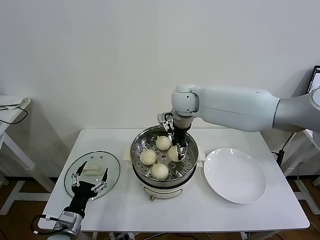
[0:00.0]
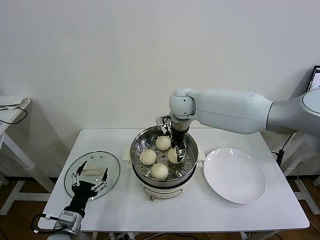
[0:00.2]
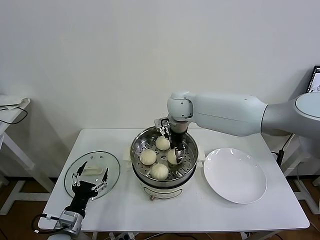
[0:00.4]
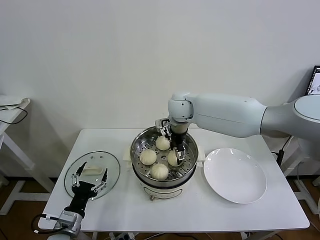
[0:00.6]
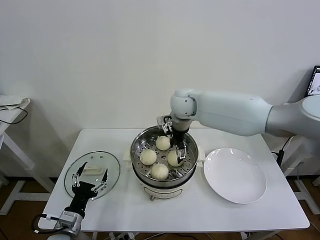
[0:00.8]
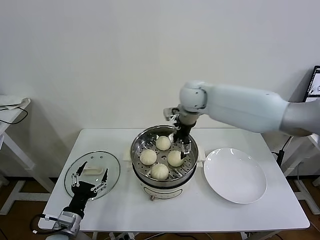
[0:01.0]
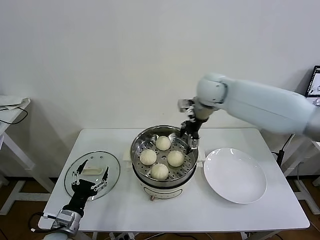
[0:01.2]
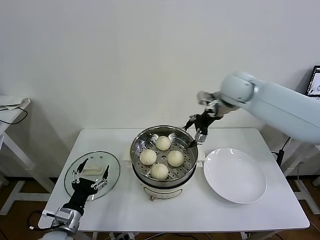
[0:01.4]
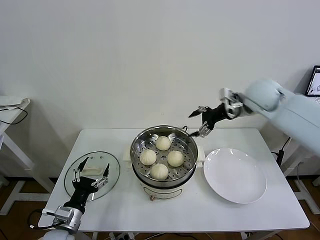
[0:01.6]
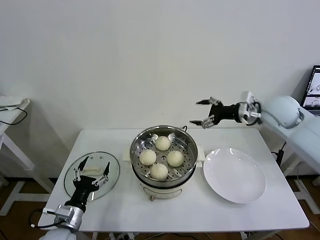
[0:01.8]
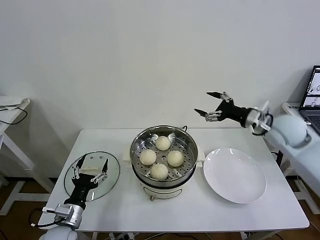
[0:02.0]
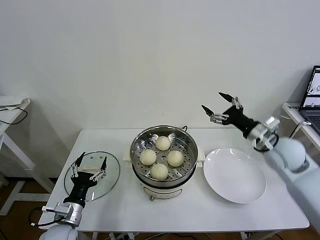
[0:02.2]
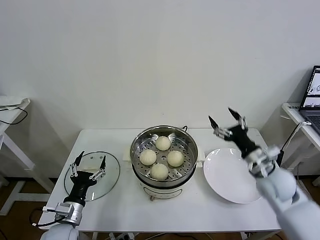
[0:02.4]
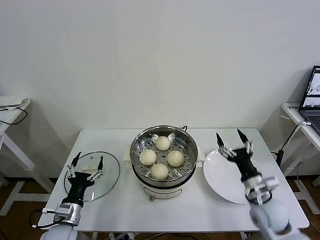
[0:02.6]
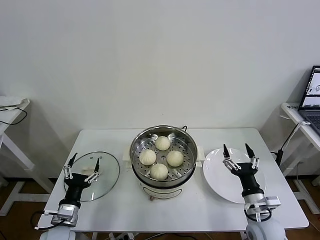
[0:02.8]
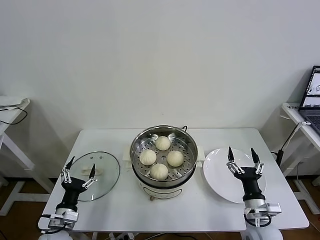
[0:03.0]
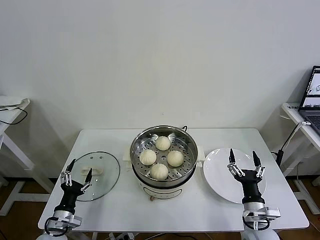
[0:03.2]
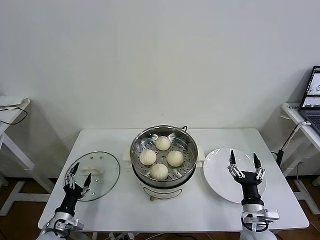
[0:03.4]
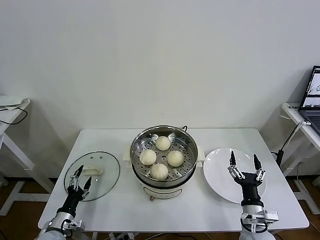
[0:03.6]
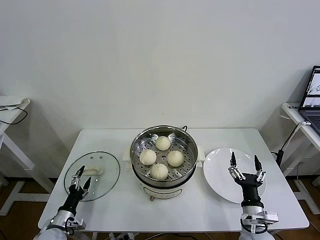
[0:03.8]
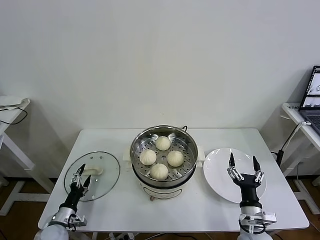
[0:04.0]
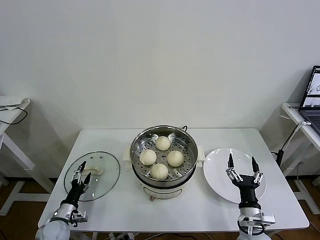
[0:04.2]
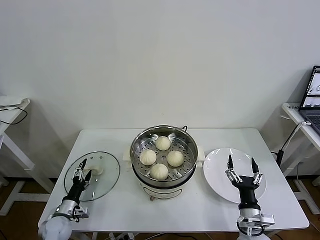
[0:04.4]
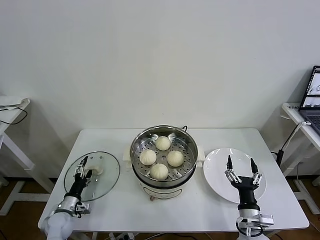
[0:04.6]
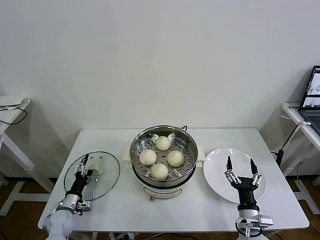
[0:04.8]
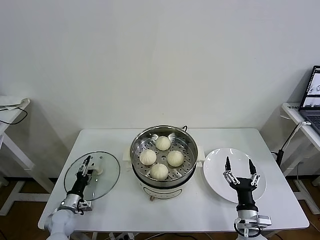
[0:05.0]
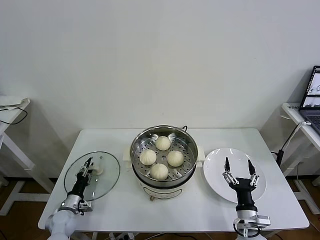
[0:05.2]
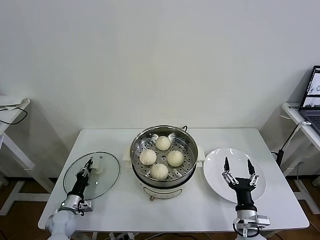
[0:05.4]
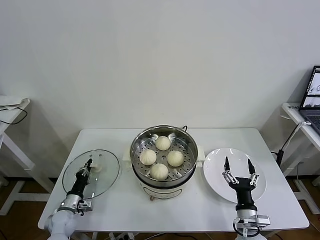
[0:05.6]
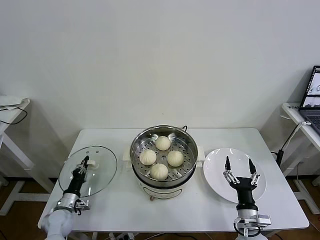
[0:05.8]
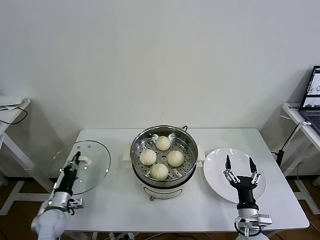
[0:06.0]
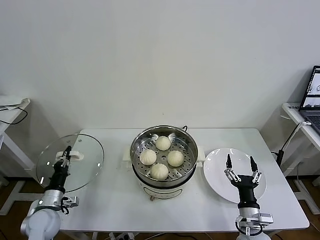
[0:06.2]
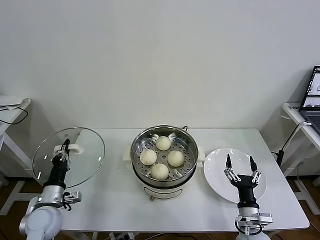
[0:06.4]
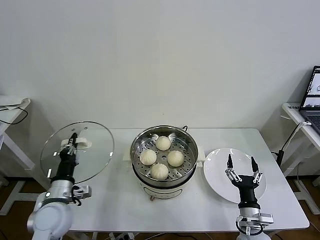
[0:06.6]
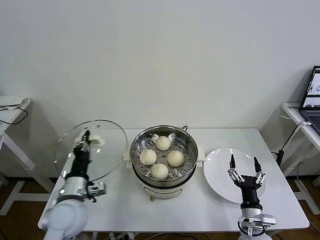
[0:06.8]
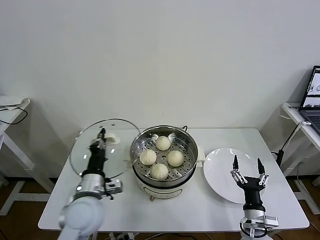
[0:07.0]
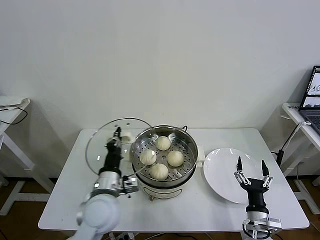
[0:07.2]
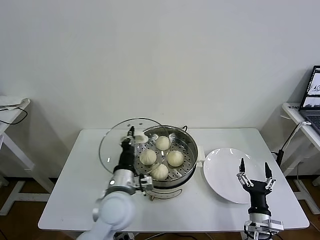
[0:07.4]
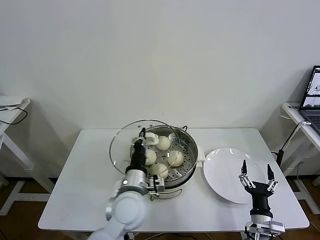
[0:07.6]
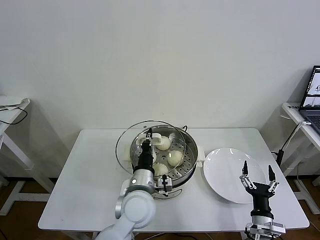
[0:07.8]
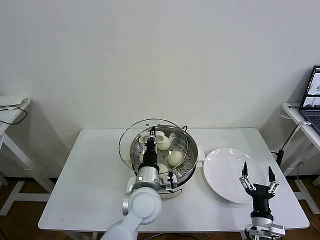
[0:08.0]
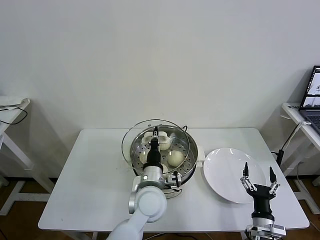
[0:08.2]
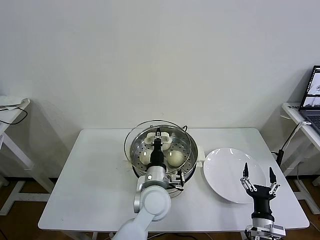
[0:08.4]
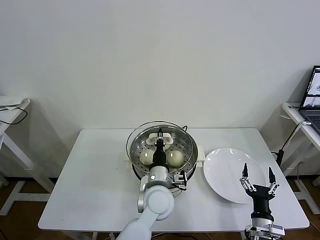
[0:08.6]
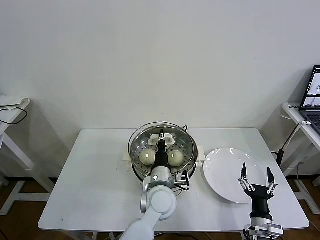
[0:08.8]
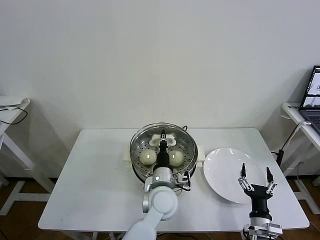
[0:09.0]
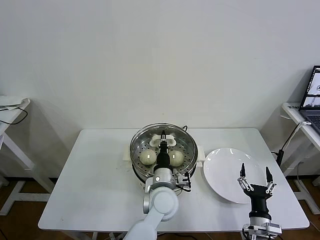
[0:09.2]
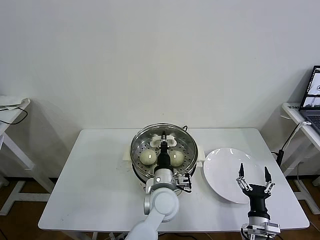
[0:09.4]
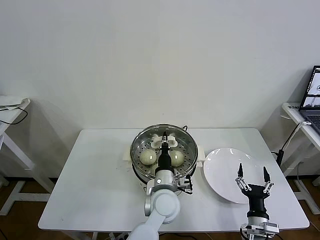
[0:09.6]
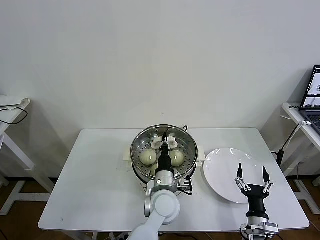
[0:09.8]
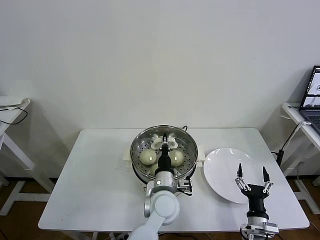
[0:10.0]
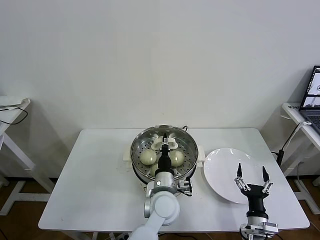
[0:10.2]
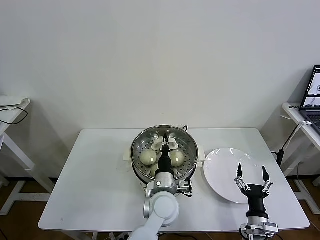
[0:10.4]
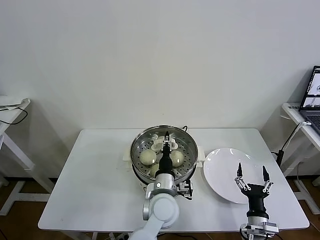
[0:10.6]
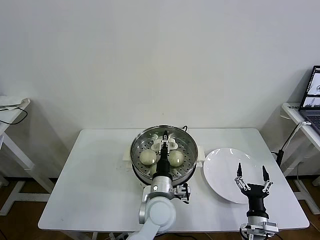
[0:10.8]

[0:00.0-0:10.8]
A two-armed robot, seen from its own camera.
Task of the whole recording: take steamed baozi put them in steamer then cover it.
Step, 0:01.0 to 0:05.6: Grasp the pot lid with left gripper.
0:00.0 to 0:01.6: The right gripper travels to the right by approximately 20 cm, and opens up.
0:01.6 to 0:03.0: The left gripper ends up approximately 5 cm from where it was. Meanwhile the right gripper moves downward and backward, roughly 40 cm.
0:03.0 to 0:04.6: The left gripper goes approximately 15 cm downward, forward and to the left.
0:04.6 to 0:06.2: The left gripper shifts some 10 cm upward, and closes.
0:06.2 to 0:07.8: The left gripper goes about 35 cm to the right and upward.
0:07.8 to 0:09.2: The left gripper goes some 5 cm to the right.
0:09.2 to 0:10.8: The left gripper opens up.

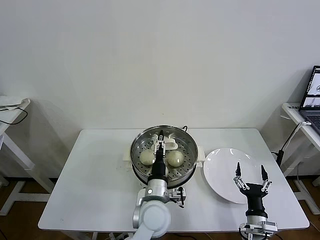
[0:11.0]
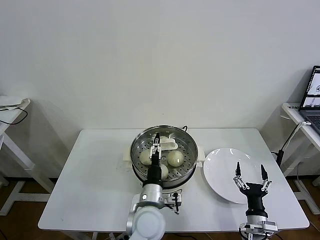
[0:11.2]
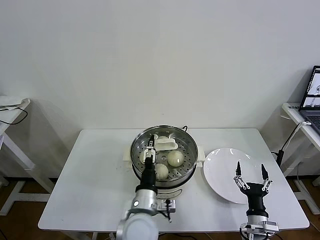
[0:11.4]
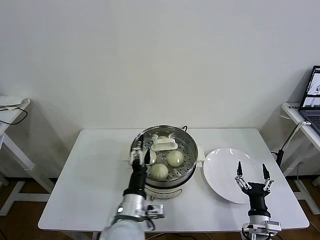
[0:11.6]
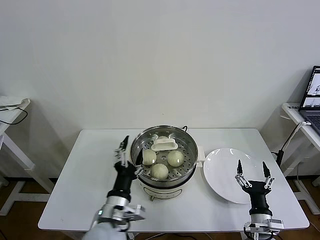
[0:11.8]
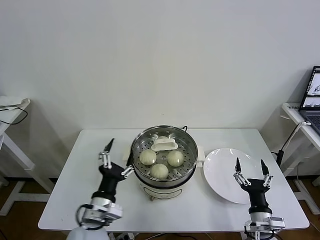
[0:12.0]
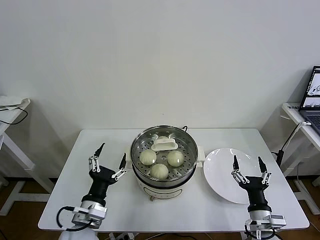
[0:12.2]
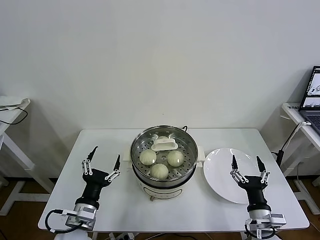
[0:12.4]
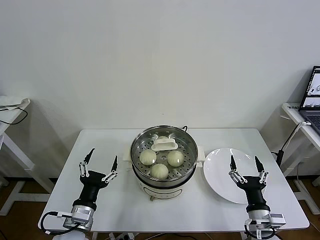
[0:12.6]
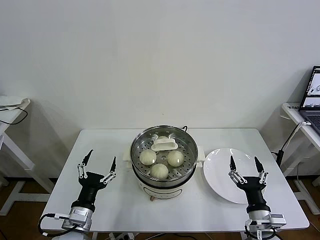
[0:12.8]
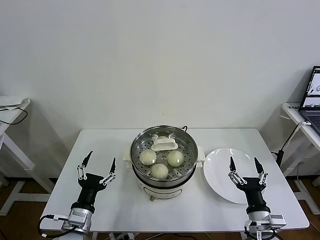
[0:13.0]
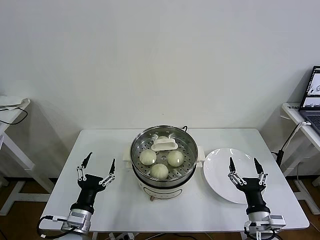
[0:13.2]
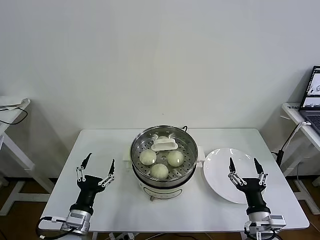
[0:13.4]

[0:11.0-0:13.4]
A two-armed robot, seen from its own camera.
Task of the whole recording: take steamed baozi put them in steamer then cover it.
0:11.0 to 0:12.2: The left gripper is displaced to the left and backward by approximately 20 cm, while the right gripper heads upward, covering some 5 cm.
0:12.2 to 0:13.4: The left gripper moves some 5 cm.
